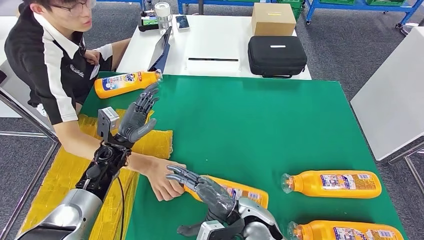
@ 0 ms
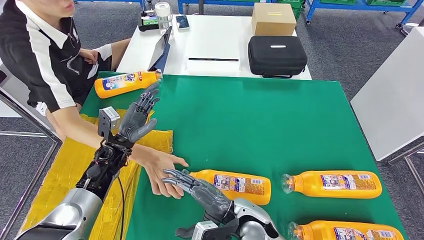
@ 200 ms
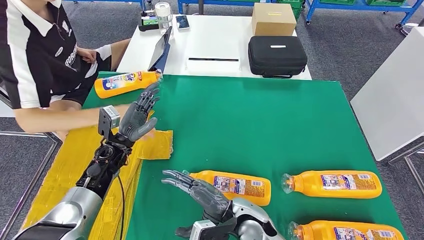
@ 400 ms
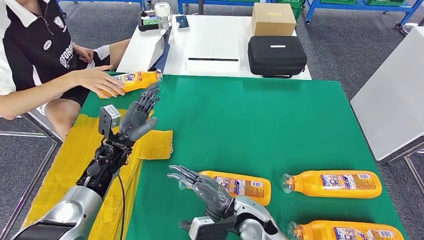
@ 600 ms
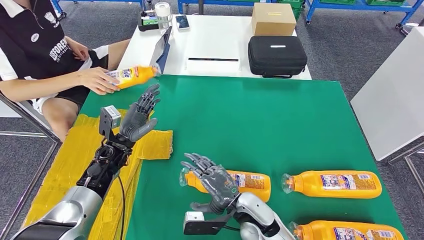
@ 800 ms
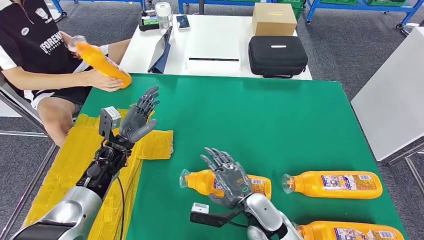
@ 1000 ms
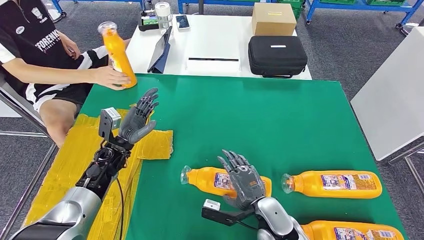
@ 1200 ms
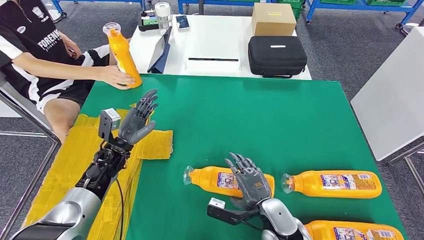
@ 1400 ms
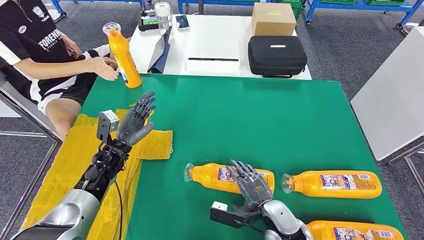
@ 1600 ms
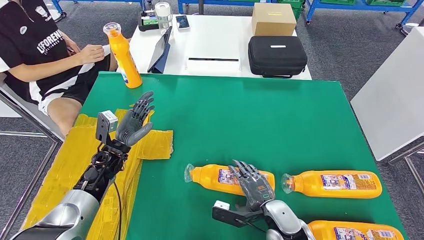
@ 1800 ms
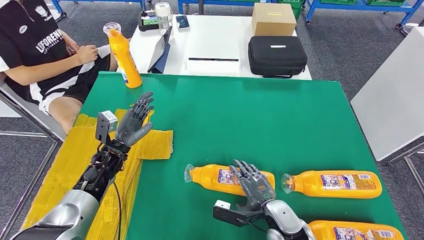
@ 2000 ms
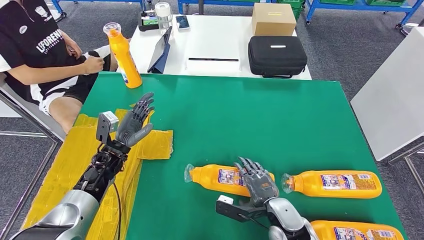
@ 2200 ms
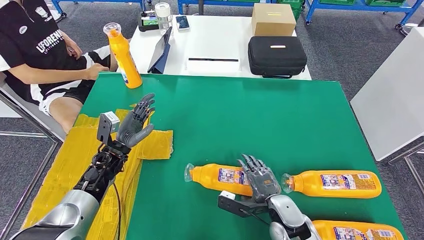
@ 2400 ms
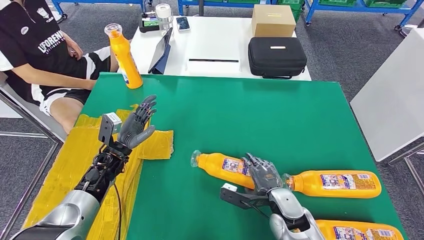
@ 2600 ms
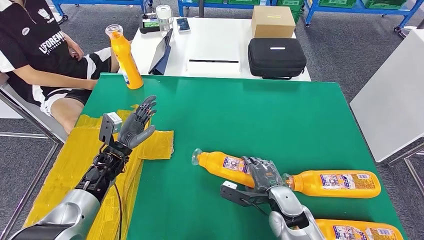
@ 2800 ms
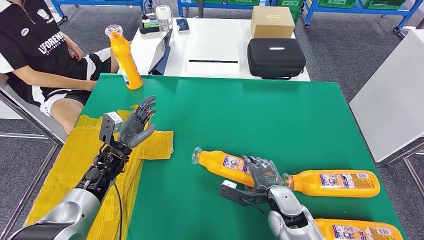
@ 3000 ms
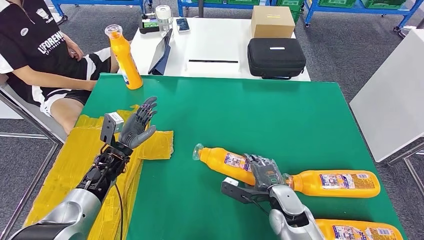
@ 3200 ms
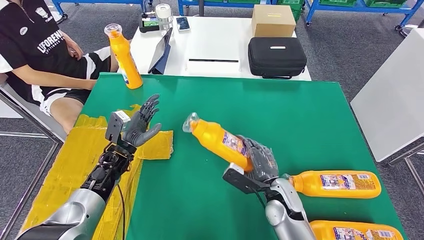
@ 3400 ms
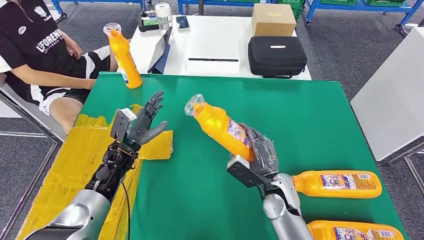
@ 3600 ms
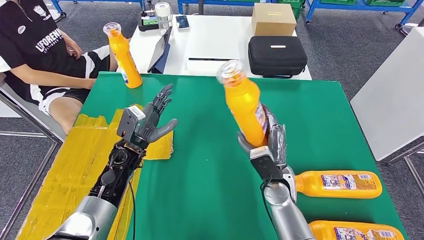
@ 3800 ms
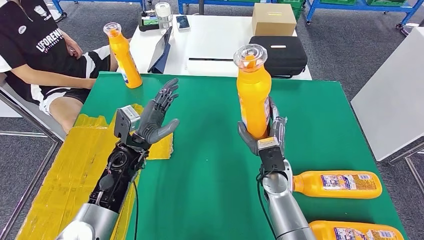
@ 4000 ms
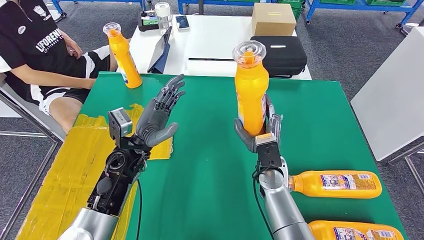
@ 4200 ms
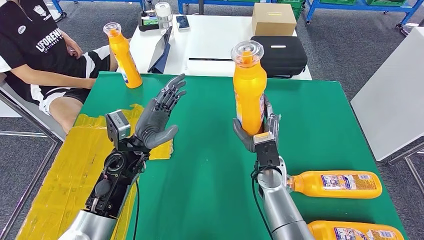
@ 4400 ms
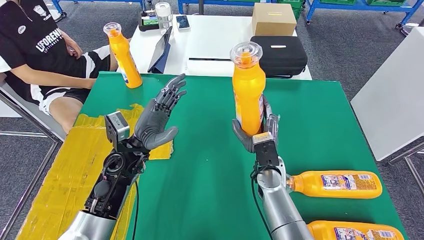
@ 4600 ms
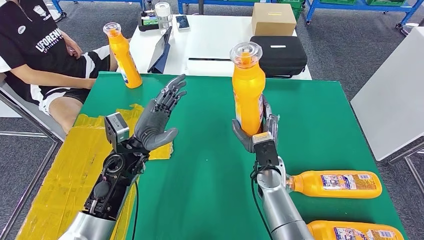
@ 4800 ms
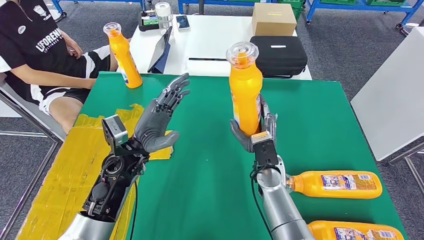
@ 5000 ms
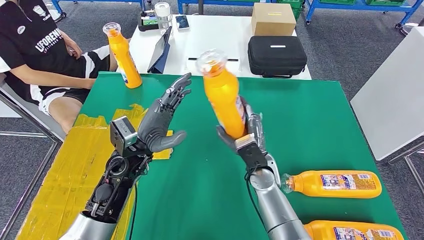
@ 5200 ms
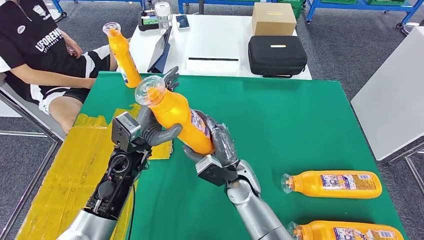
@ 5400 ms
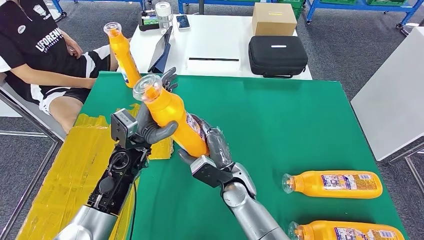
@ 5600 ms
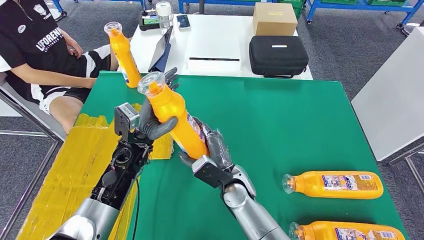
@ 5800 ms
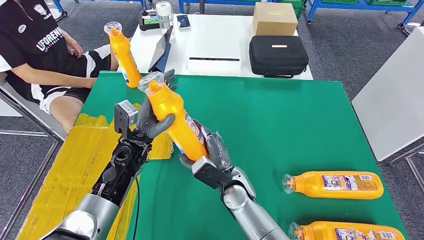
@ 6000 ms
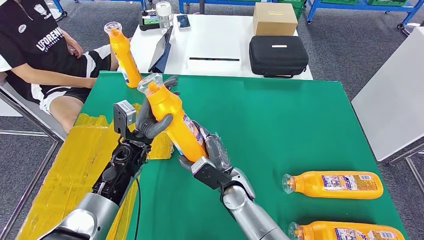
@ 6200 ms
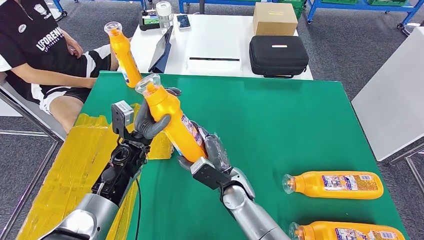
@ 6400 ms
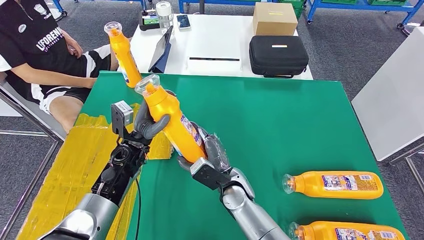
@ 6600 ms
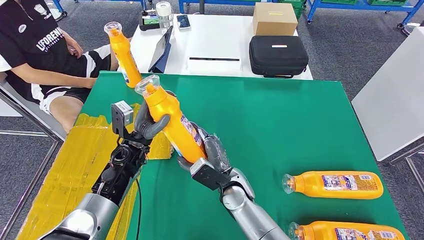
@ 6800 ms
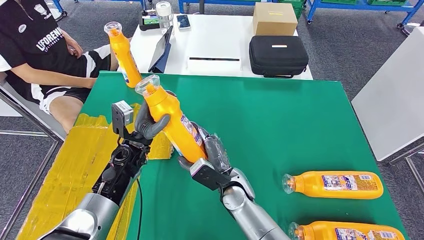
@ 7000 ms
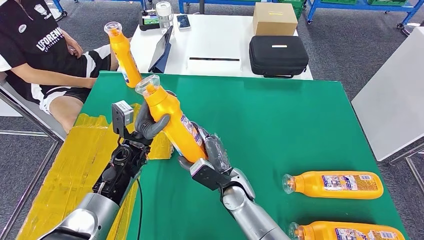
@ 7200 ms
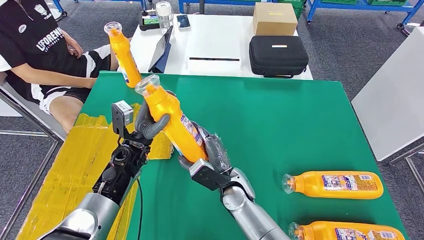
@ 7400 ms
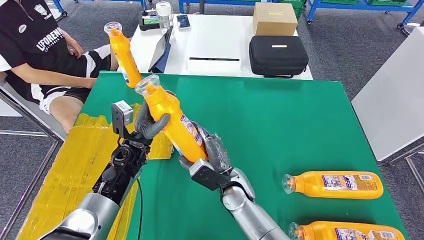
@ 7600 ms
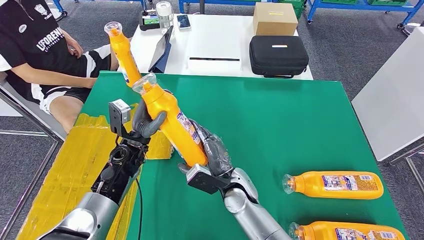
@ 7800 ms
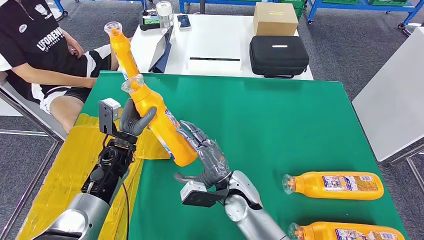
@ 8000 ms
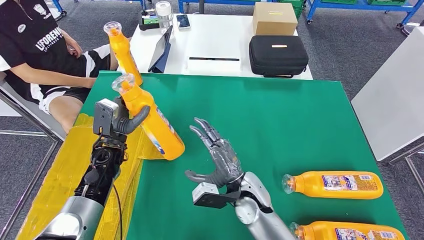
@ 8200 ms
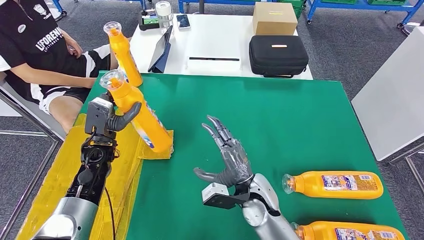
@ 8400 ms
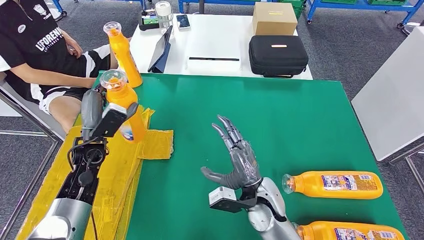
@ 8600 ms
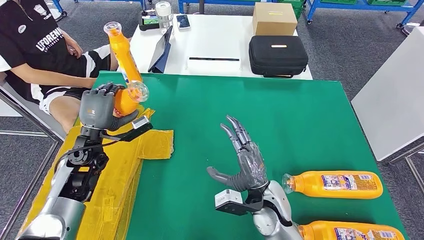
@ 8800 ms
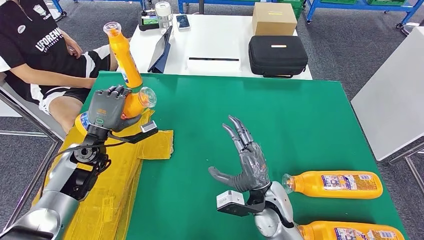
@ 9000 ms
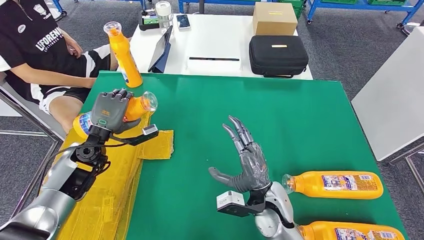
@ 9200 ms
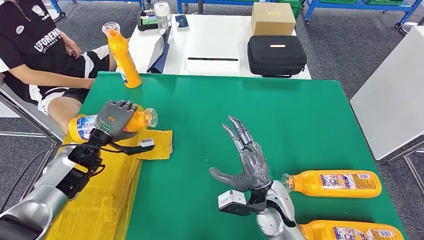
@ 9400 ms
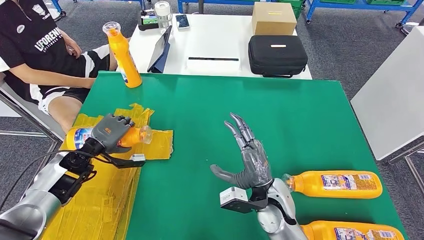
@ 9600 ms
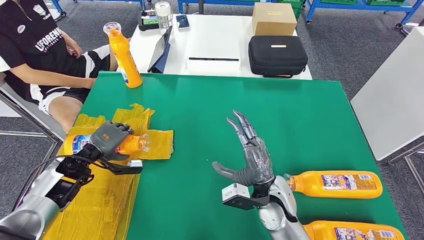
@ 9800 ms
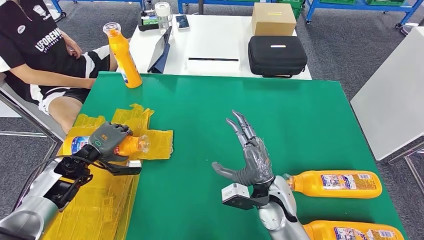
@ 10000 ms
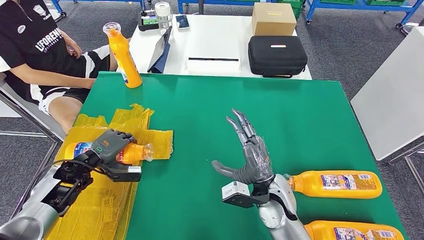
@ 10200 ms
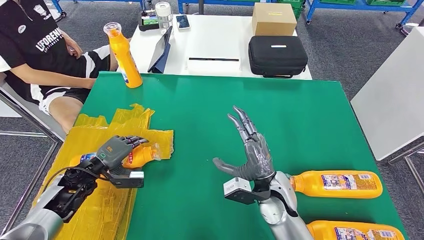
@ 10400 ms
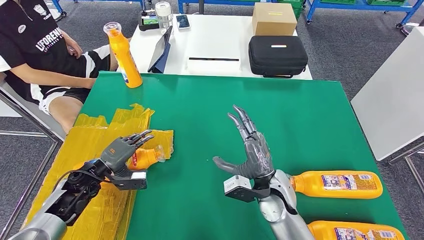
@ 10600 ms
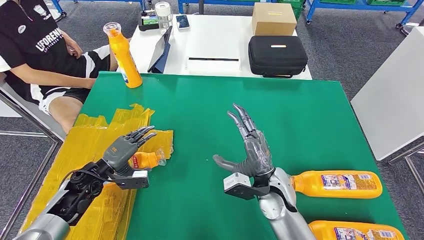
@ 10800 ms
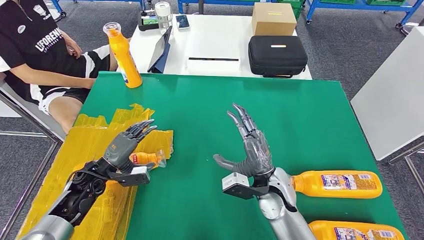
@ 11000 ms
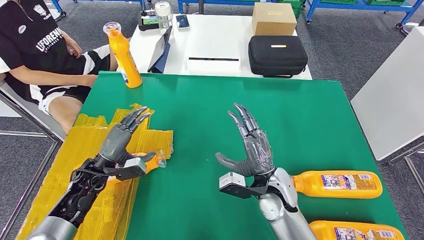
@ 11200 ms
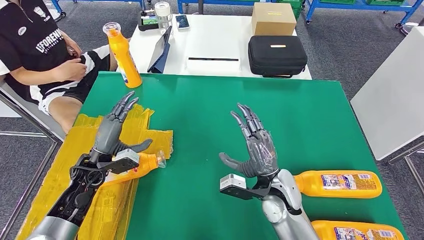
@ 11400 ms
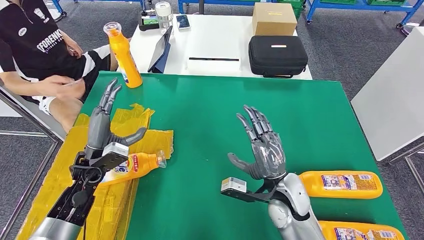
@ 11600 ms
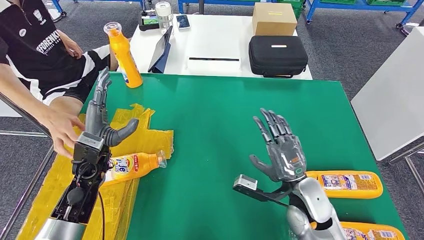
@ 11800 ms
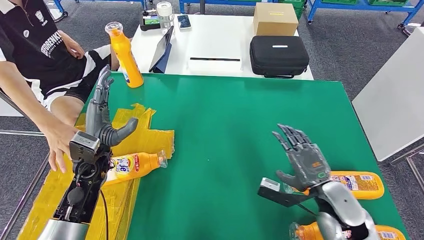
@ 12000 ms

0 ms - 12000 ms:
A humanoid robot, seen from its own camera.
Step, 1600 ms - 7000 ms: Pick up the fast-moving consumer goods bottle from the table.
6000 ms - 7600 ms: The hands make only small movements.
9000 ms - 10400 ms: The left hand shifts approximately 10 cm downward and to the left.

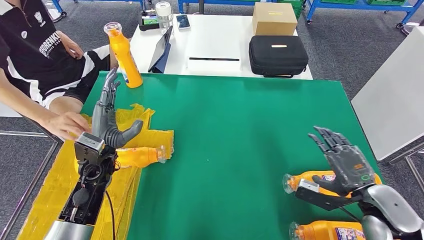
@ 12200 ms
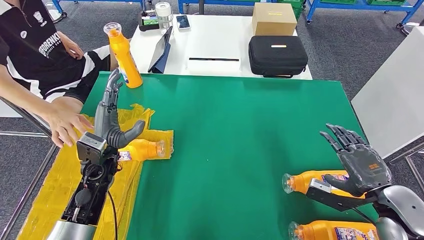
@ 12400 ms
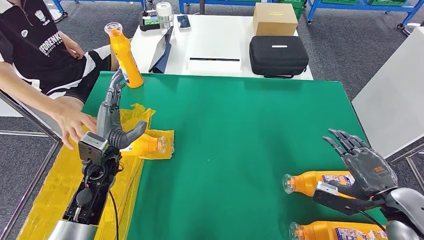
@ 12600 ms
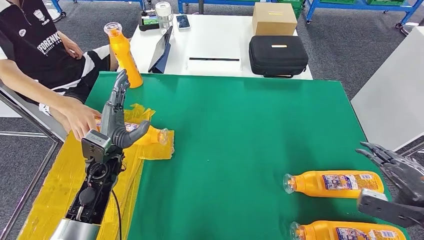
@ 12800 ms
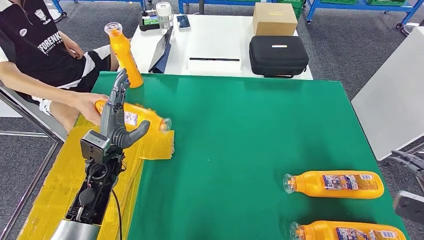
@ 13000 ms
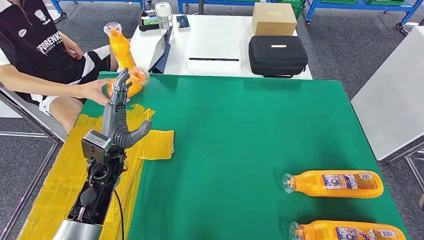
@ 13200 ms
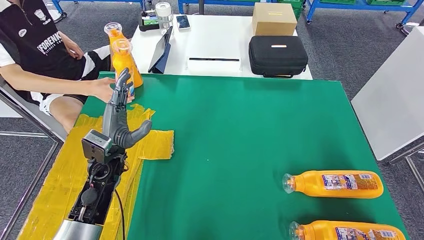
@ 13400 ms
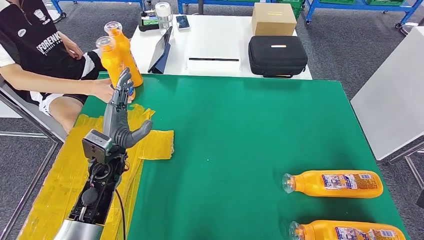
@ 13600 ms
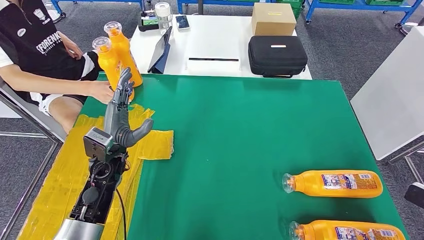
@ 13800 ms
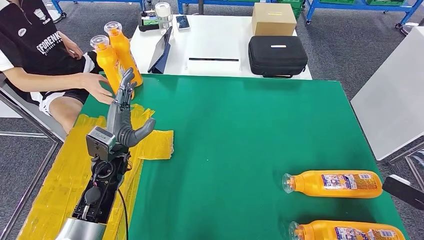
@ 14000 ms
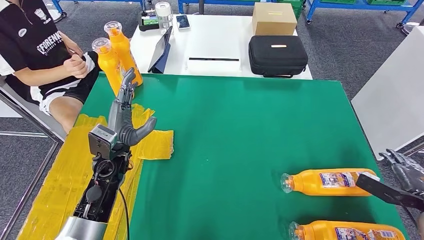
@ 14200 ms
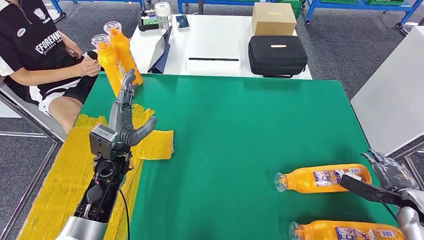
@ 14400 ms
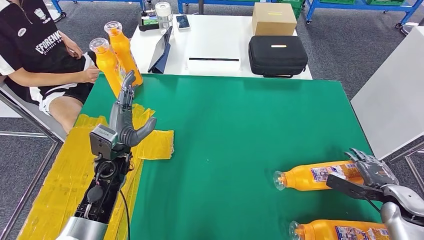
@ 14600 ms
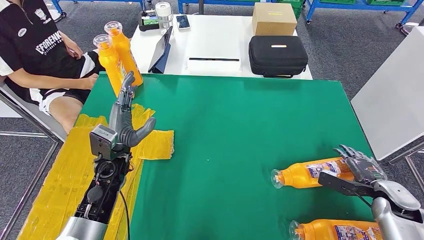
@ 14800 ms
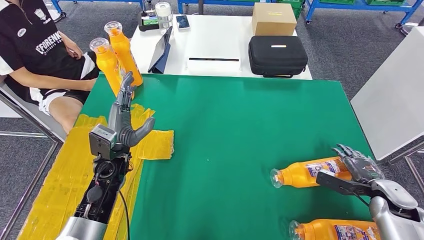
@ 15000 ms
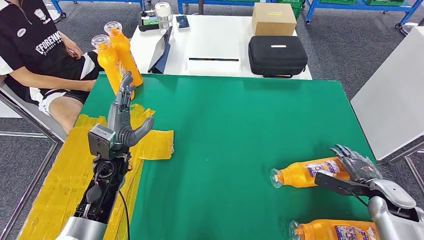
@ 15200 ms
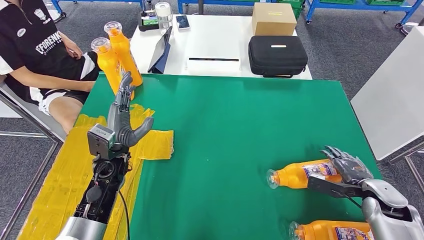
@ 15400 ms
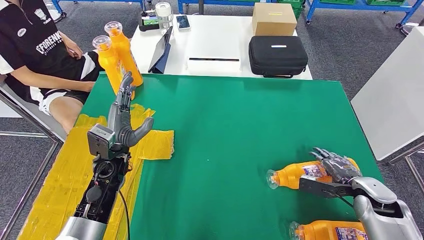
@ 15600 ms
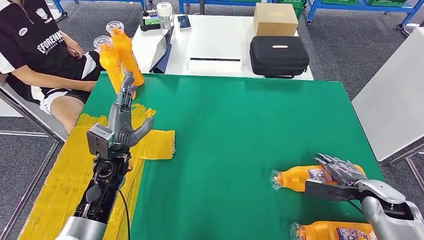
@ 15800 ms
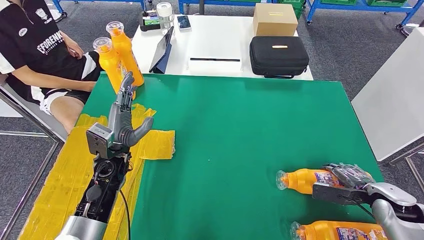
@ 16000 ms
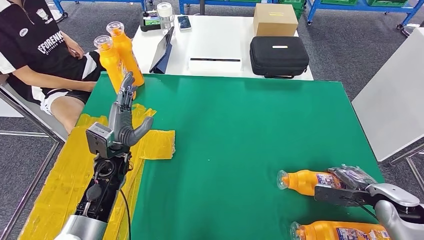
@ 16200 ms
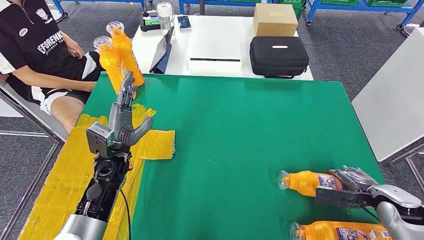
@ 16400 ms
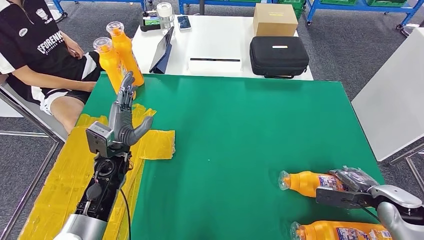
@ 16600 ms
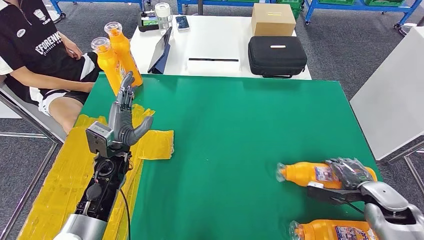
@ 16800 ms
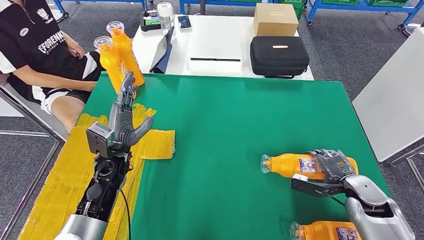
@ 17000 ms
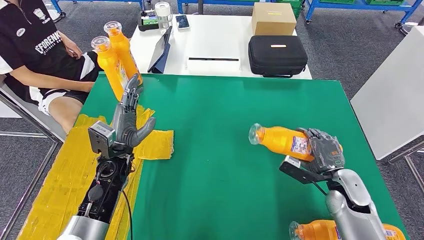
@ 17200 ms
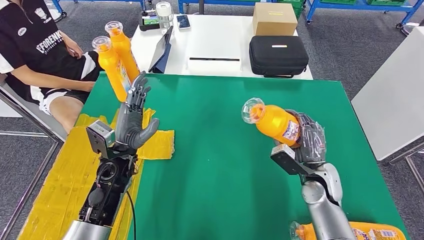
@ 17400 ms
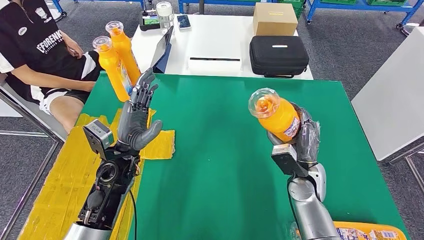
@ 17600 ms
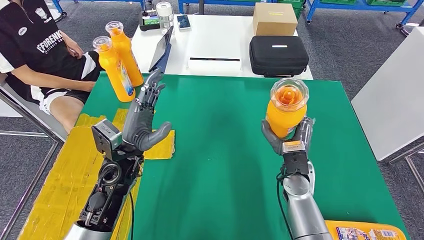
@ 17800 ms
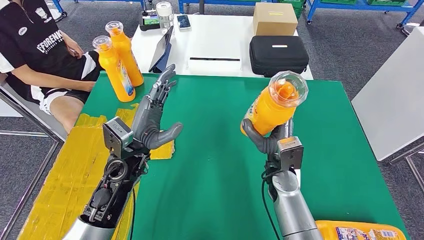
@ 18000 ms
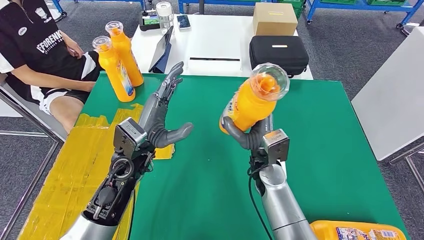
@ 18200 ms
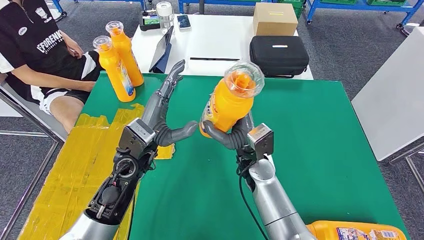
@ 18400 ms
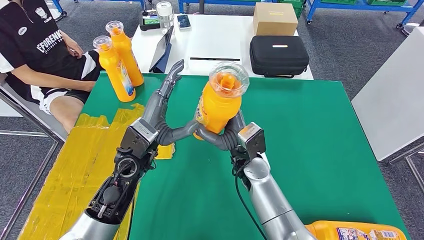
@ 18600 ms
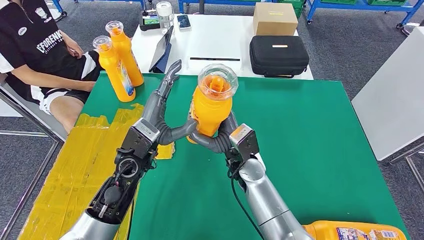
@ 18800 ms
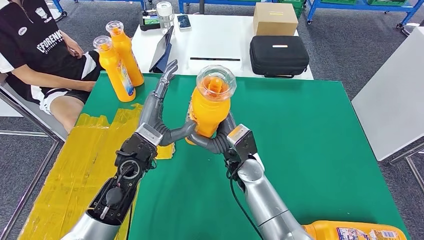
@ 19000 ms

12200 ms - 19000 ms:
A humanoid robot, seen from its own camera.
Step, 12200 ms - 14400 ms: Flip the fast-moving consumer goods bottle to the front side.
12200 ms - 13600 ms: The right hand moves to the right, some 20 cm.
13600 ms - 15000 ms: The right hand moves downward, forward and to the left, about 25 cm.
16200 ms - 17600 ms: The left hand changes place by about 5 cm, while the right hand is displaced to the left by roughly 20 cm.
17600 ms - 19000 ms: The right hand goes roughly 15 cm to the left. The left hand changes place by approximately 5 cm.
